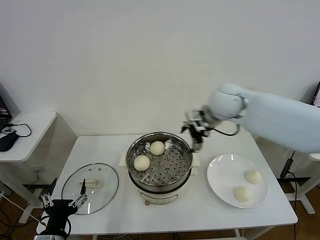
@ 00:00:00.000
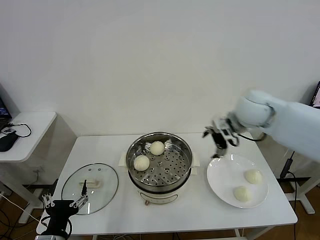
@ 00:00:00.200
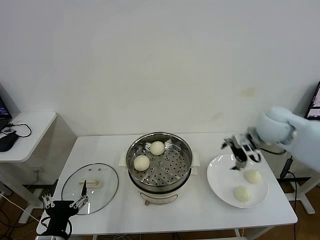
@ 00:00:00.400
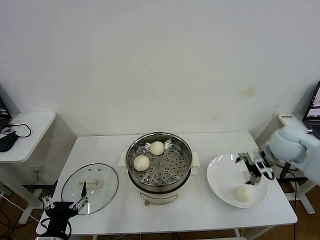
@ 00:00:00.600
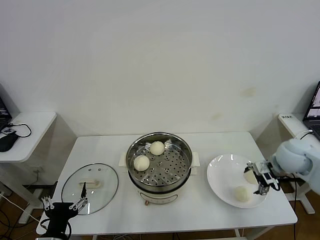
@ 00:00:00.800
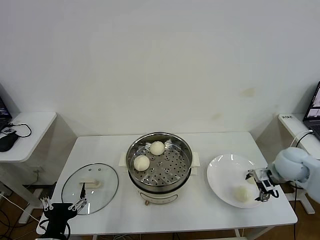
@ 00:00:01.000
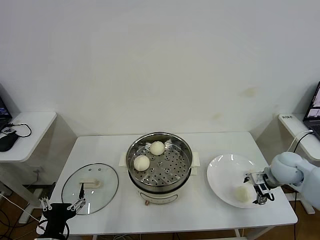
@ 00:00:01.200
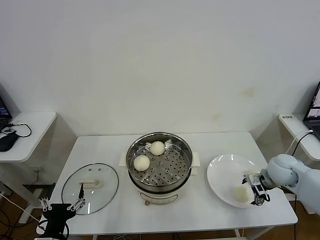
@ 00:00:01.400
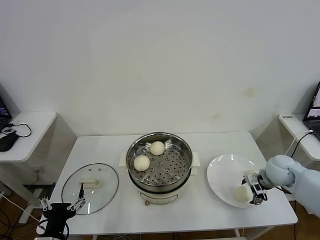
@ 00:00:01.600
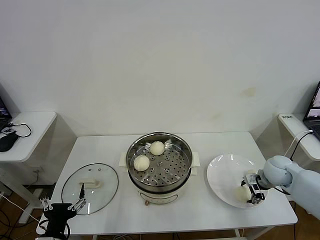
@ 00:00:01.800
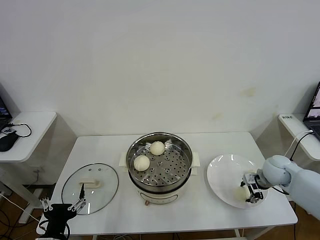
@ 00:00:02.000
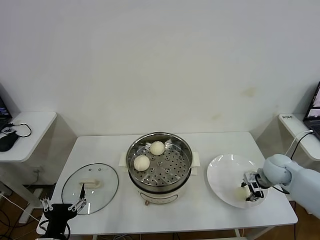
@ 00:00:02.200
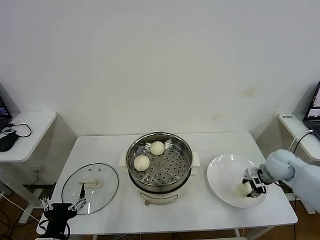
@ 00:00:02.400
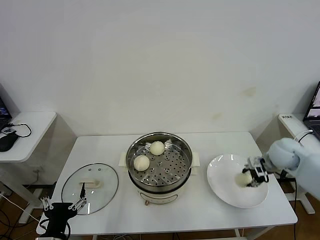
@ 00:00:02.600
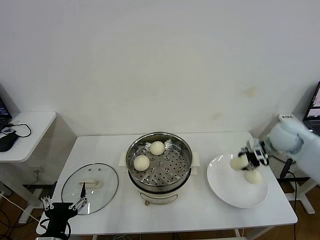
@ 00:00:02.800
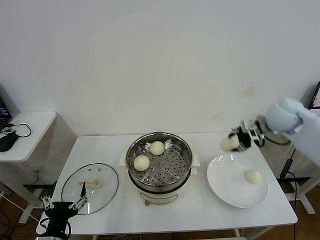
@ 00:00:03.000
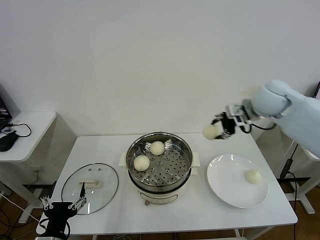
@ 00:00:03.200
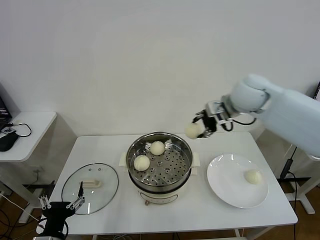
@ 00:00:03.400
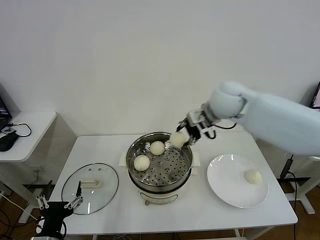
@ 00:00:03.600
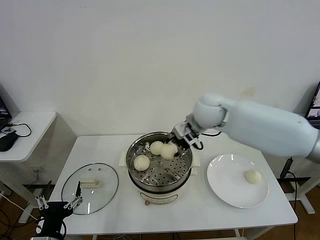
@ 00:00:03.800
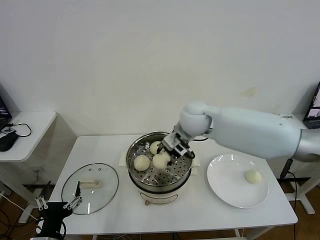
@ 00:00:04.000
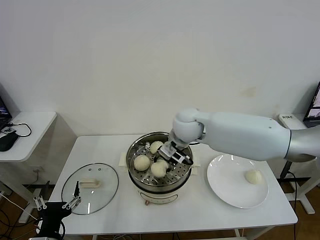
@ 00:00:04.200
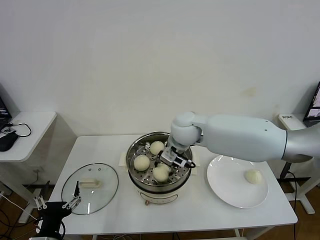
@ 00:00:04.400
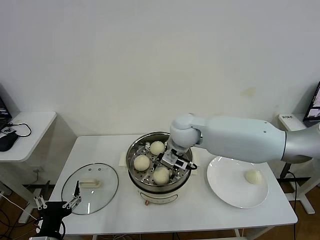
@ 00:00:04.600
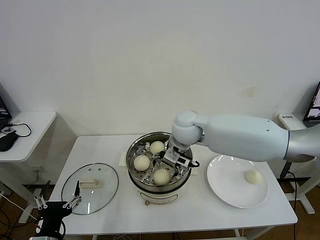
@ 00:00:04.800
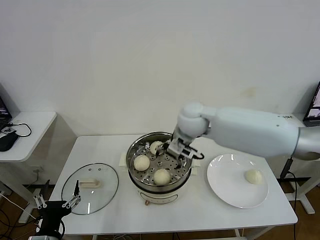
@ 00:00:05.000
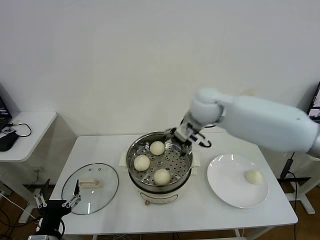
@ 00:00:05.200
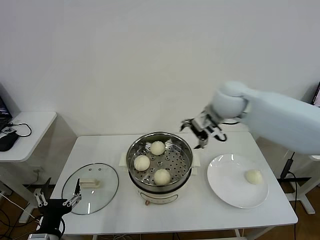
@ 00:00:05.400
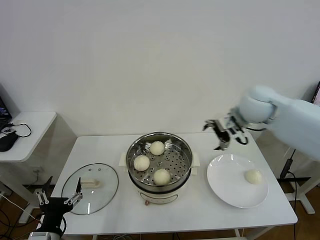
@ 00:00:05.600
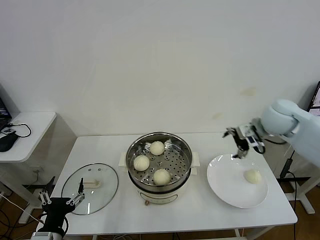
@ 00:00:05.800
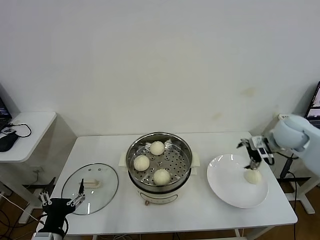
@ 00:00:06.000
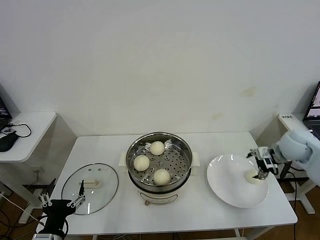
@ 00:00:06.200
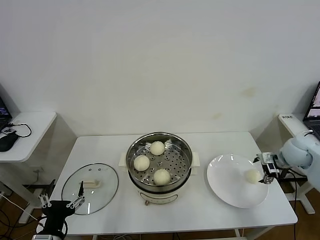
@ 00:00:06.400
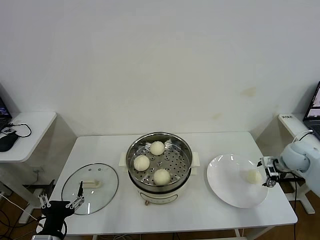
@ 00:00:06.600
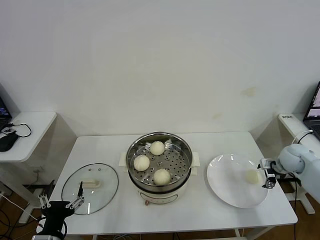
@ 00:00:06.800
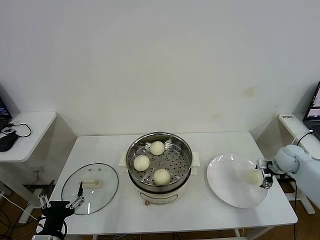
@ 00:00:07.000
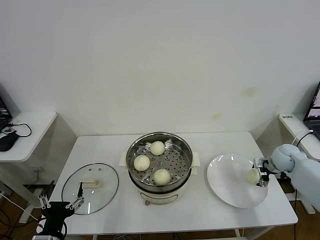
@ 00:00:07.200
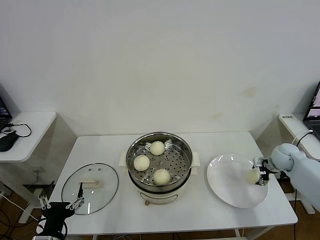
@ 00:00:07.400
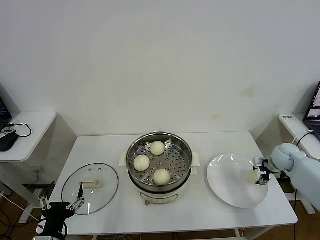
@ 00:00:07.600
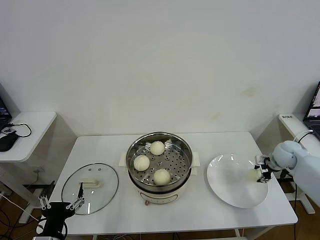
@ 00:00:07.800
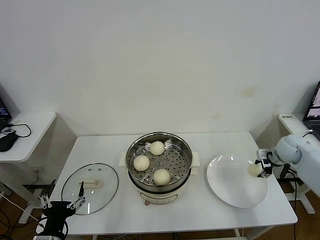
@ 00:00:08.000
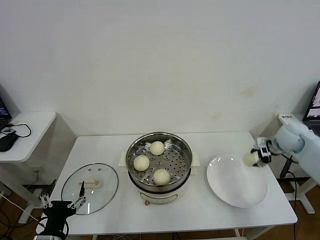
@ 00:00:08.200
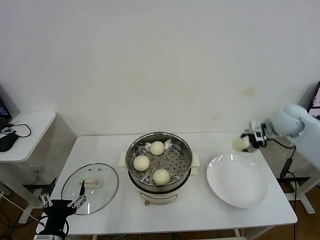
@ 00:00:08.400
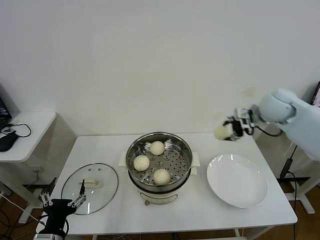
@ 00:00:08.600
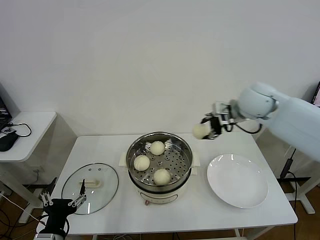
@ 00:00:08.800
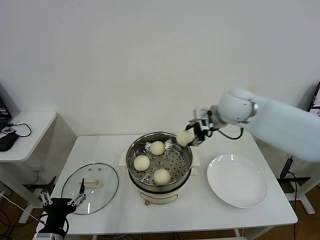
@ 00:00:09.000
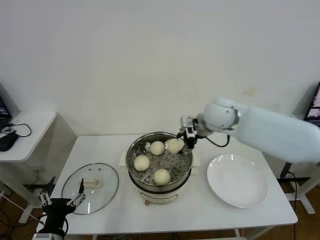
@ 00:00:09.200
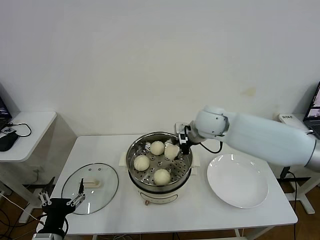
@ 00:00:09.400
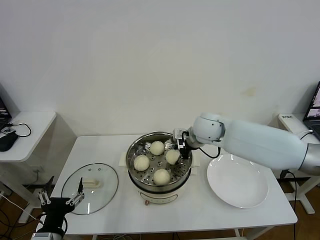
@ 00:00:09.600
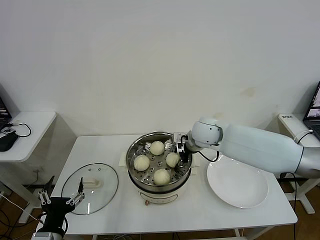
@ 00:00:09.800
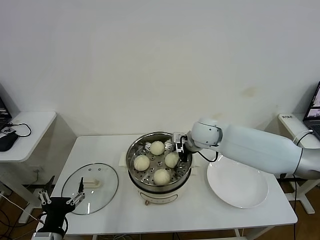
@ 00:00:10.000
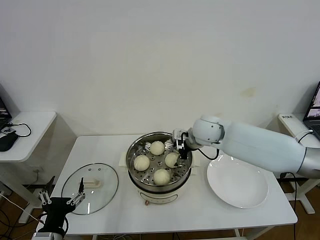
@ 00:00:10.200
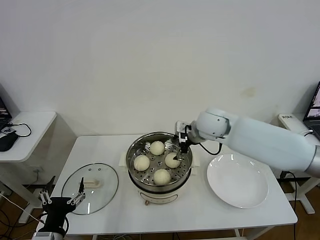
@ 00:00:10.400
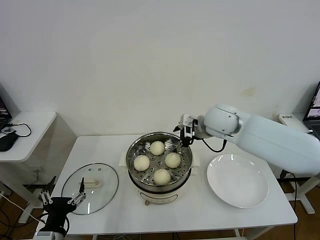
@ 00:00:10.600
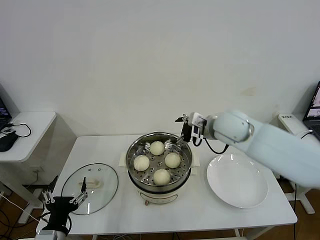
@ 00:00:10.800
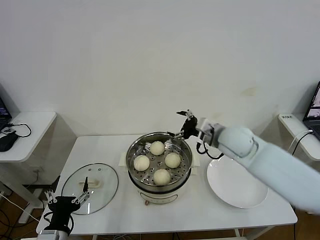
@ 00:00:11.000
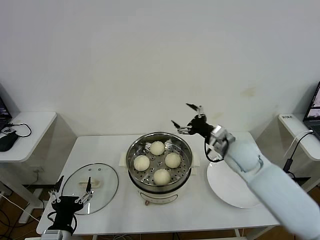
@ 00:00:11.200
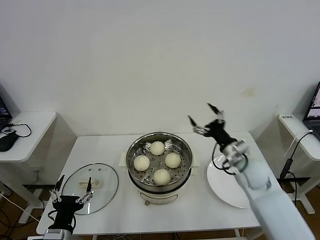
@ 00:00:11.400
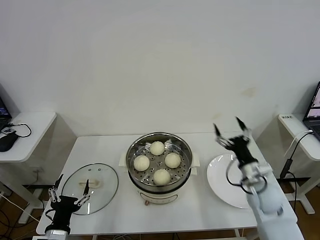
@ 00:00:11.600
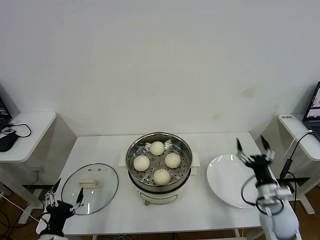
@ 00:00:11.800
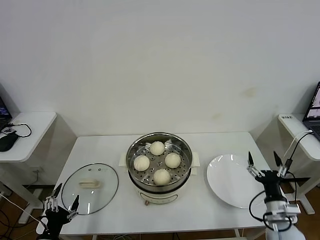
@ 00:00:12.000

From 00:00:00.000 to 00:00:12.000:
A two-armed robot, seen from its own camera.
Task of the whole recording: take steamed baozi put them in steamer then cover it.
Step, from 00:00:00.000 to 00:00:02.000: Grasp the baozi in the plate with right gripper.
Step, from 00:00:02.200 to 00:00:04.600: Place the baozi on the steamer with right gripper.
Step, from 00:00:05.000 to 00:00:07.600: Grasp the baozi in the plate with right gripper.
Step, from 00:00:07.800 to 00:00:10.000: Place the baozi on the steamer with right gripper.
From 00:00:00.000 to 00:00:01.600: The right gripper is displaced to the right and downward by approximately 30 cm.
From 00:00:01.600 to 00:00:03.000: The right gripper moves upward and forward, some 20 cm, and closes.
From 00:00:03.000 to 00:00:04.400: The right gripper is displaced to the left by some 30 cm.
From 00:00:04.400 to 00:00:06.000: The right gripper travels to the right by approximately 30 cm, and opens up.
From 00:00:06.000 to 00:00:07.600: The right gripper shifts about 15 cm downward and to the right, and closes its fingers.
From 00:00:07.600 to 00:00:09.000: The right gripper shifts approximately 35 cm to the left and upward.
From 00:00:09.000 to 00:00:10.400: The right gripper moves downward and to the left, some 10 cm, and opens its fingers.
From 00:00:10.400 to 00:00:12.000: The left gripper heads downward and to the left, covering some 10 cm, while the right gripper shifts some 40 cm backward, downward and to the right.

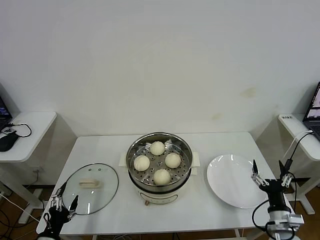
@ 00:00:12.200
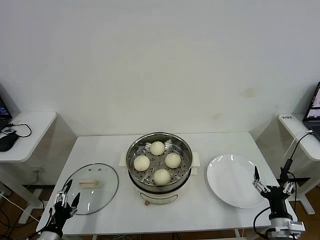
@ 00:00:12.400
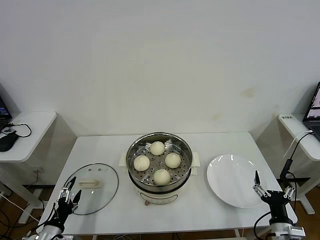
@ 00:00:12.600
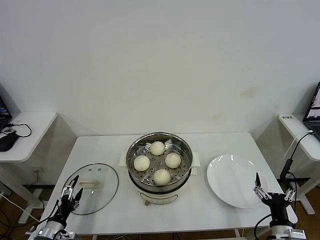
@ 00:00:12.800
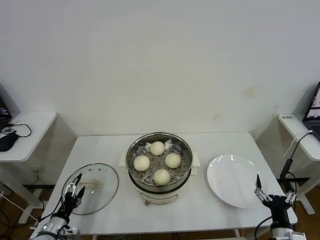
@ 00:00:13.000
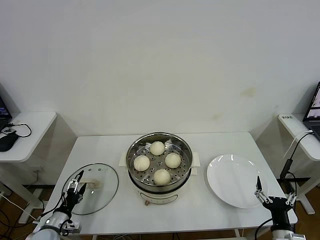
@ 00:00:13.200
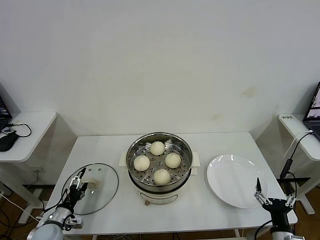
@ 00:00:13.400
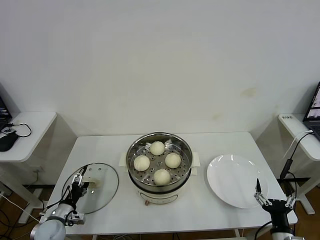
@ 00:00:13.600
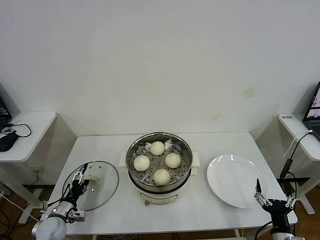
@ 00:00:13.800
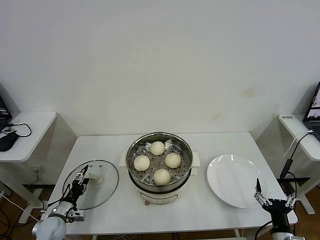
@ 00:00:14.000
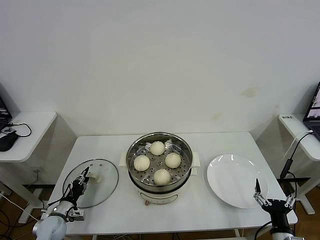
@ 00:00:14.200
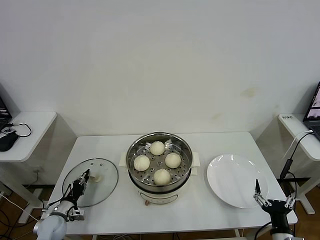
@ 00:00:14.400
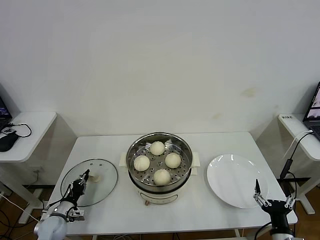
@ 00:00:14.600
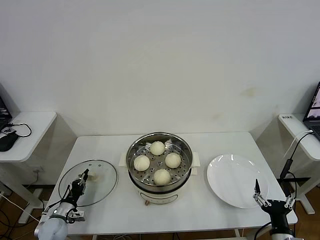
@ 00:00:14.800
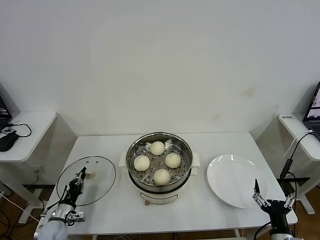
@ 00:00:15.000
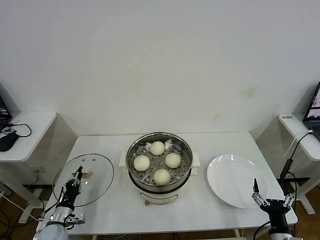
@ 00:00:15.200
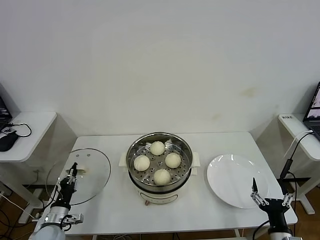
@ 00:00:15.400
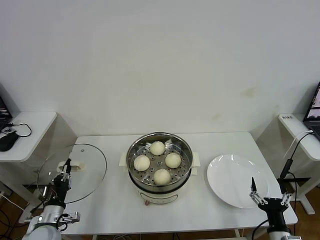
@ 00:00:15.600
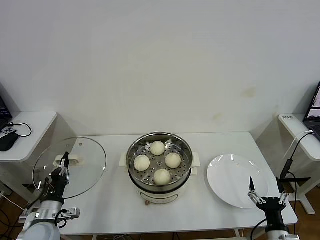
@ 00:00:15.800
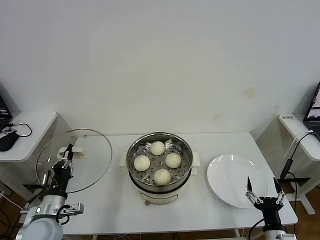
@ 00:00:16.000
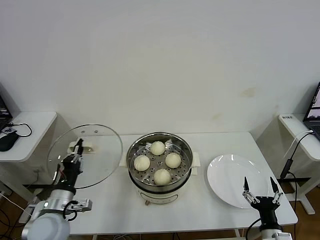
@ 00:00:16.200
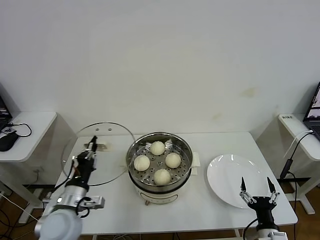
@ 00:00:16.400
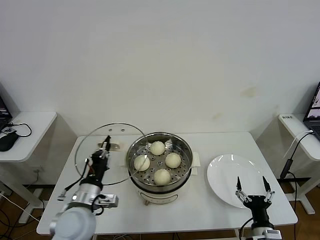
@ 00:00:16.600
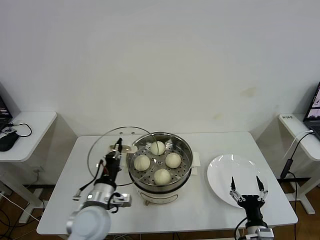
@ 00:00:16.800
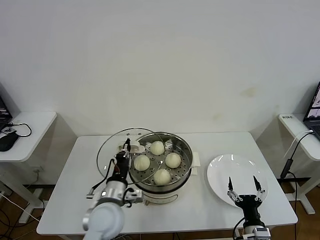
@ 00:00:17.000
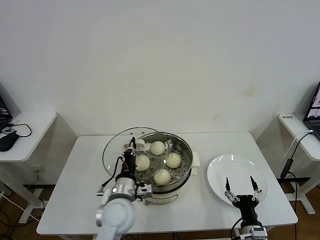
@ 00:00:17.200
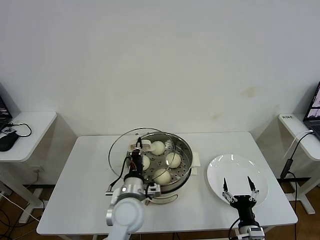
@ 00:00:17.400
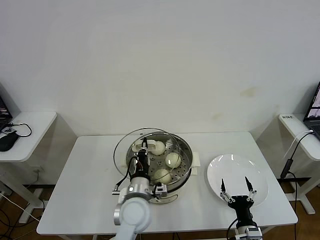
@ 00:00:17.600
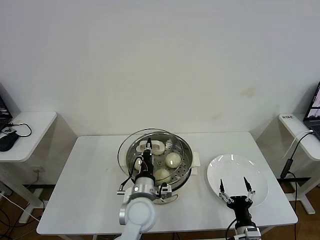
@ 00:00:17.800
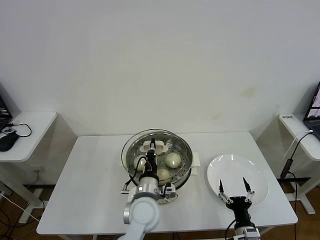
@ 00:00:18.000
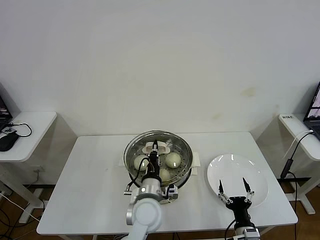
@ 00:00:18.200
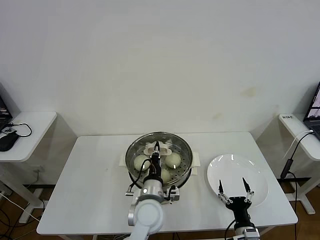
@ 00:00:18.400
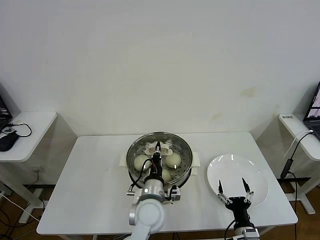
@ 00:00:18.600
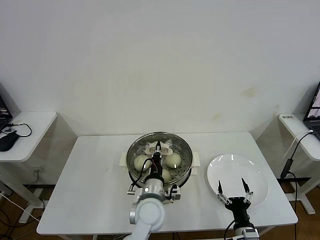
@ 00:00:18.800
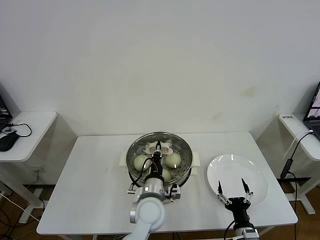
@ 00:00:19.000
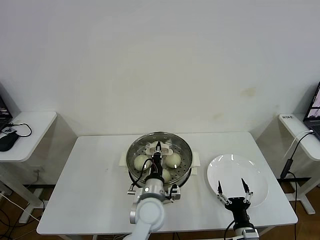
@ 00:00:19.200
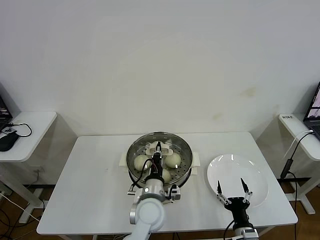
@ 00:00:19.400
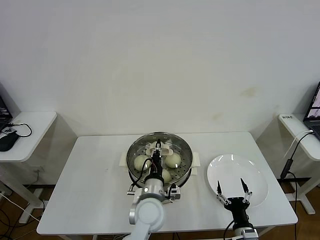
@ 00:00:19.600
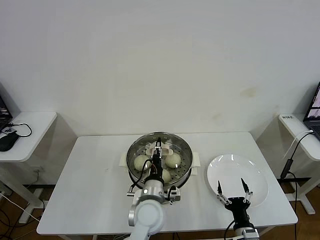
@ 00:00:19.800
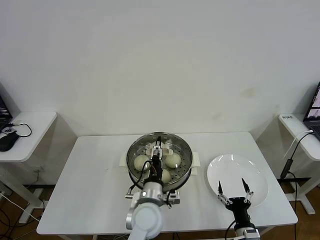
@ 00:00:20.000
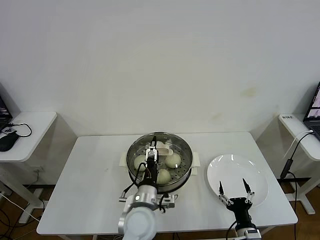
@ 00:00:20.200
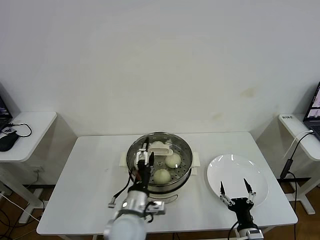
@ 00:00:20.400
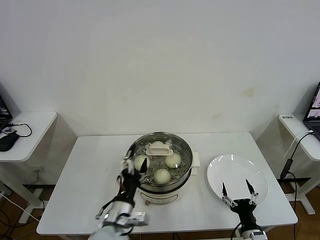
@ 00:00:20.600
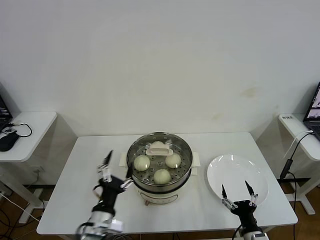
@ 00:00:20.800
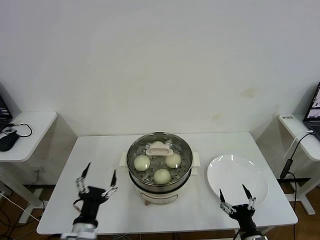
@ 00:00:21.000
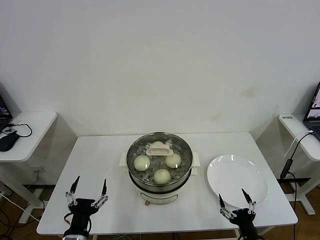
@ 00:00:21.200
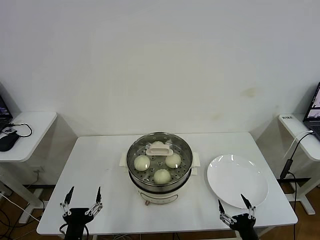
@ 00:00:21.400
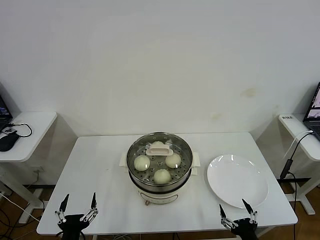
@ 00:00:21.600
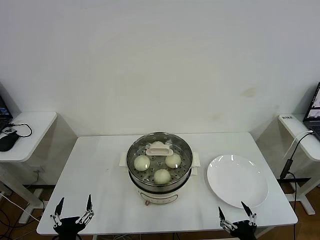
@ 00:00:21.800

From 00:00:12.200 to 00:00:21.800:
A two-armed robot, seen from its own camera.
Task of the whole recording: take steamed baozi put them in steamer then cover it.
Step, from 00:00:12.200 to 00:00:14.400: Grasp the pot lid with left gripper.
Step, from 00:00:14.600 to 00:00:20.000: Place the pot lid on the steamer with left gripper.
From 00:00:12.200 to 00:00:13.800: The right gripper heads backward, covering roughly 5 cm. Meanwhile the left gripper shifts approximately 15 cm forward and downward.
From 00:00:13.800 to 00:00:15.400: The left gripper closes its fingers.
From 00:00:15.400 to 00:00:17.000: The left gripper shifts roughly 25 cm to the right and upward. The right gripper moves to the left, approximately 5 cm.
From 00:00:17.000 to 00:00:18.600: The left gripper goes some 10 cm to the right.
From 00:00:18.600 to 00:00:20.200: The left gripper opens.
From 00:00:20.200 to 00:00:21.800: The left gripper heads to the left and backward, covering roughly 25 cm, while the right gripper goes some 10 cm backward and upward.
